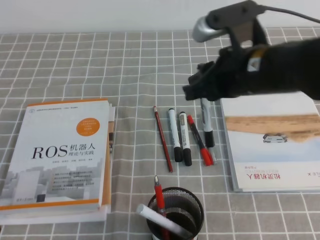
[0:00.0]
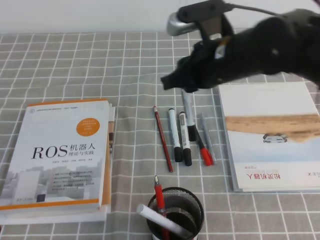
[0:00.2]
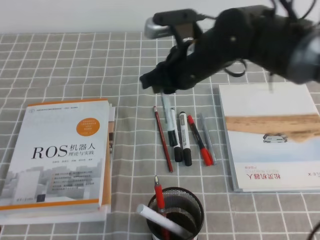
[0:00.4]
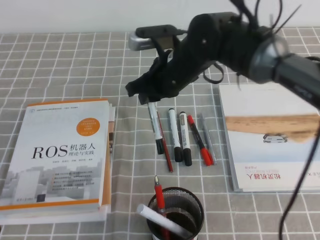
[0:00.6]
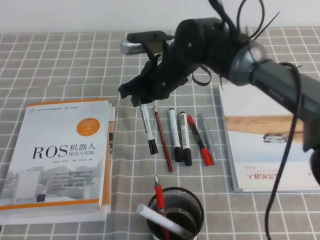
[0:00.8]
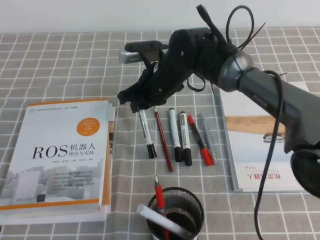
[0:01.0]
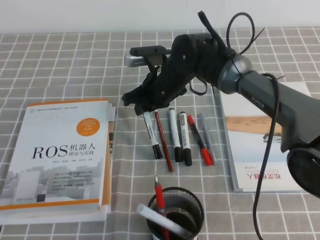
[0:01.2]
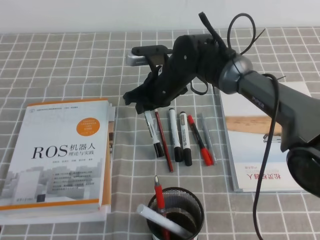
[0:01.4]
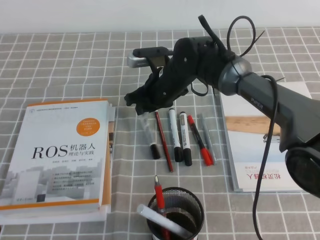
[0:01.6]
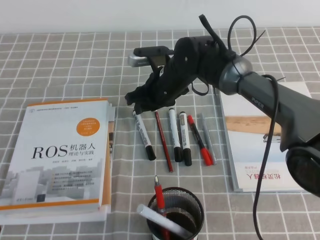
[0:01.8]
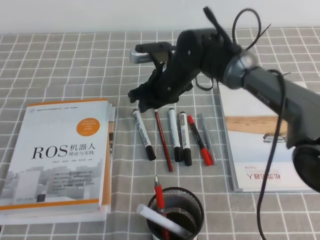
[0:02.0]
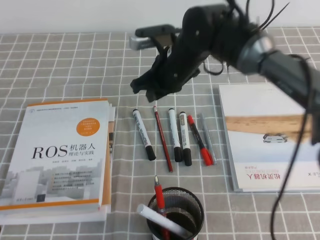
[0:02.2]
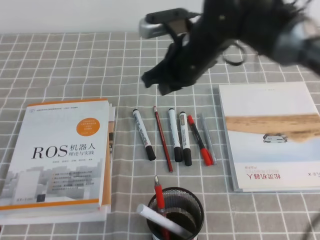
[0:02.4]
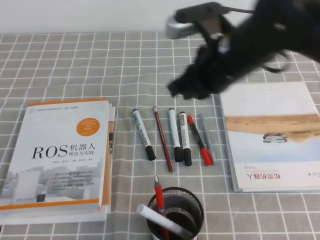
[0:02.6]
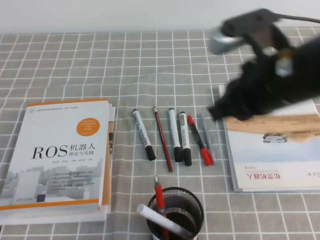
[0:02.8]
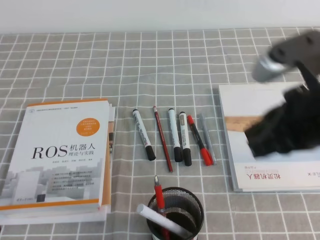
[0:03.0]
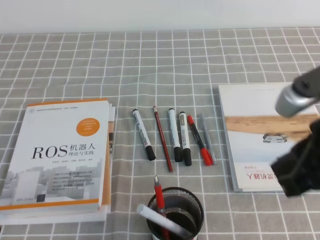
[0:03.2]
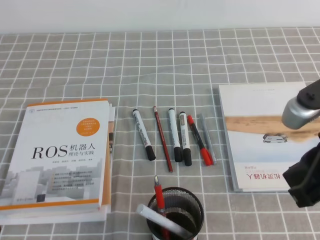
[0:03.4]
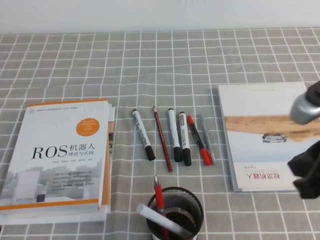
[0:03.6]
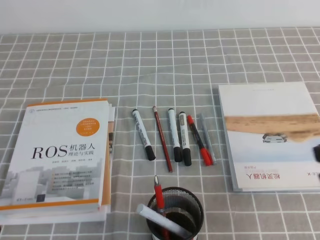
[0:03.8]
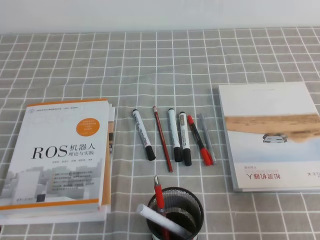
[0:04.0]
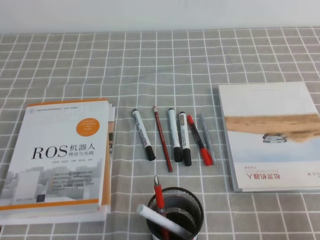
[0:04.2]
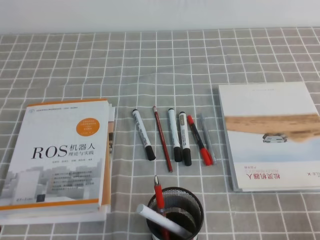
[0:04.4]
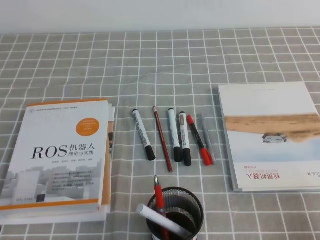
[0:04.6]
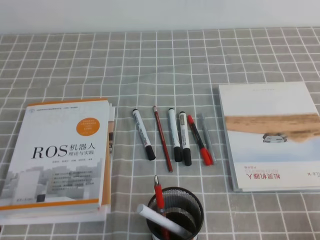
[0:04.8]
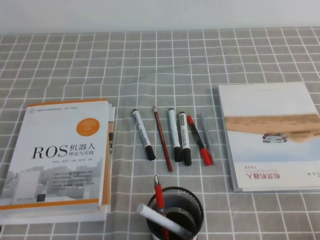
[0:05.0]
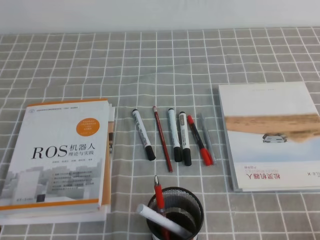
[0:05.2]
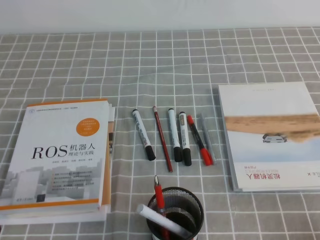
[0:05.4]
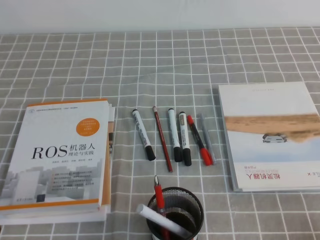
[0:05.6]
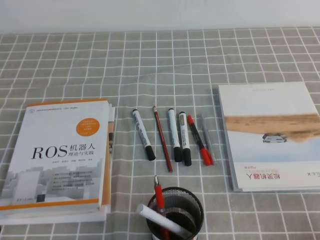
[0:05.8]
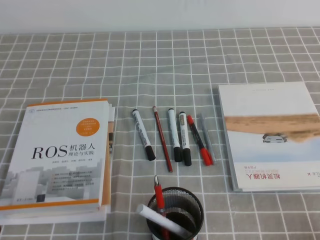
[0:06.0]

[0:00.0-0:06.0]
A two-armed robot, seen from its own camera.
Step, 0:00.0 to 0:06.0: Pick up the pen from the pen holder.
0:00.0 to 0:01.6: The right gripper shifts some 25 cm forward, downward and to the left.
0:01.6 to 0:03.0: The right gripper goes approximately 30 cm backward, to the right and upward, and closes.
0:03.0 to 0:04.4: The right gripper shifts about 25 cm downward, to the right and backward.
